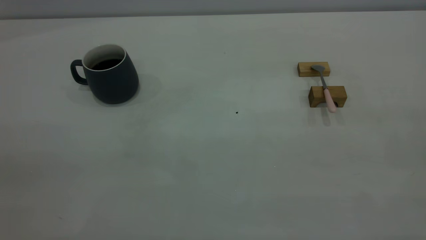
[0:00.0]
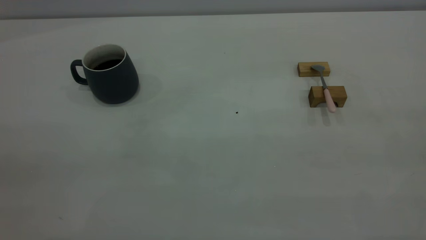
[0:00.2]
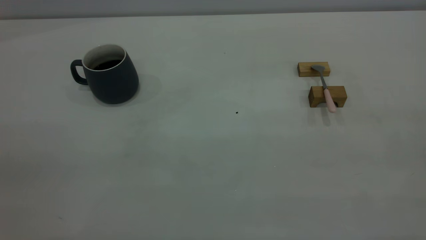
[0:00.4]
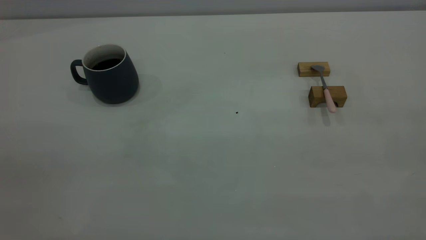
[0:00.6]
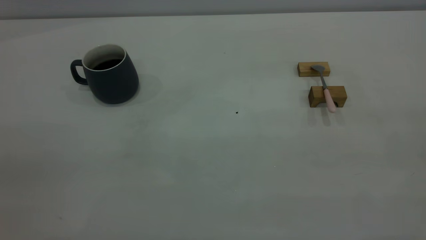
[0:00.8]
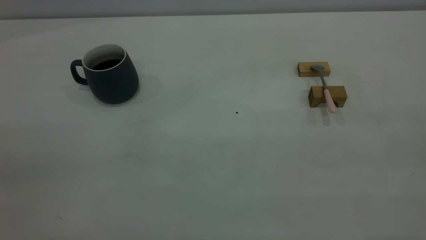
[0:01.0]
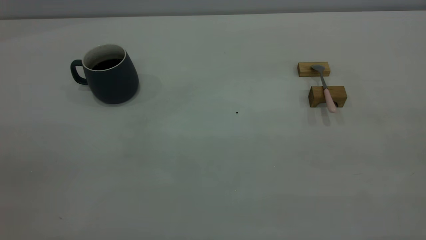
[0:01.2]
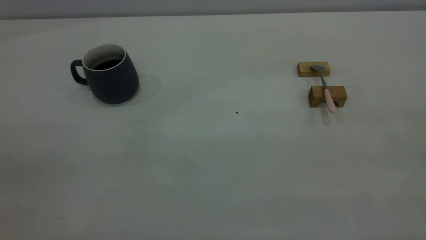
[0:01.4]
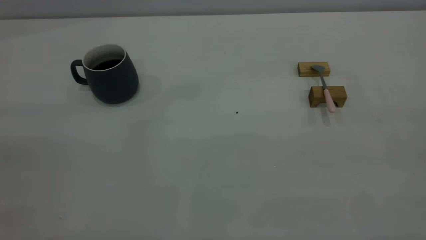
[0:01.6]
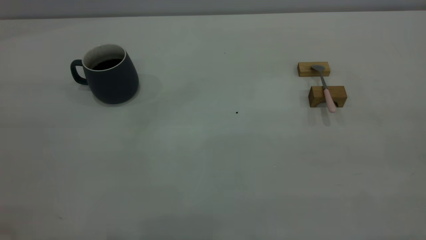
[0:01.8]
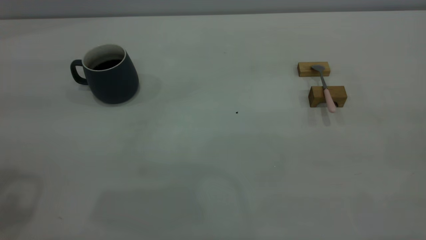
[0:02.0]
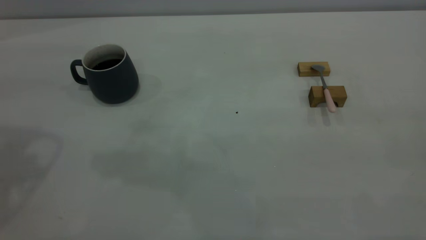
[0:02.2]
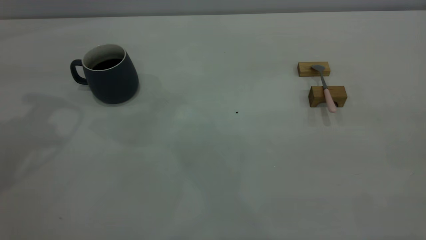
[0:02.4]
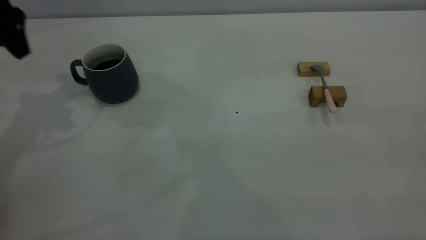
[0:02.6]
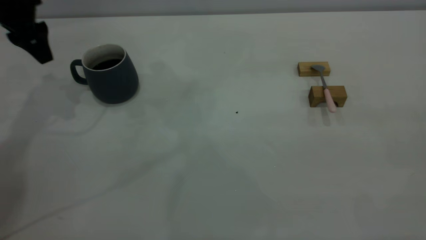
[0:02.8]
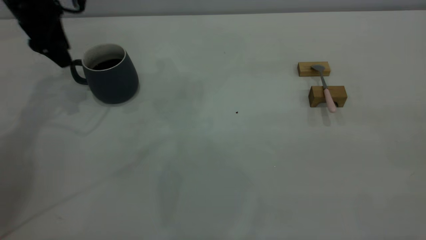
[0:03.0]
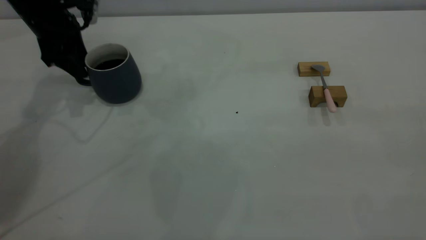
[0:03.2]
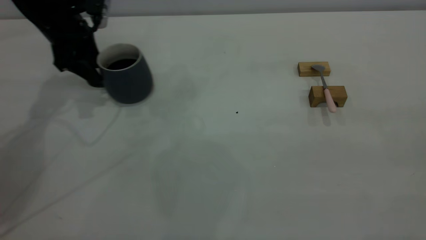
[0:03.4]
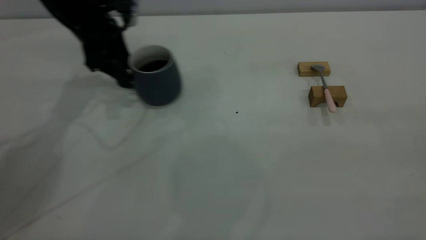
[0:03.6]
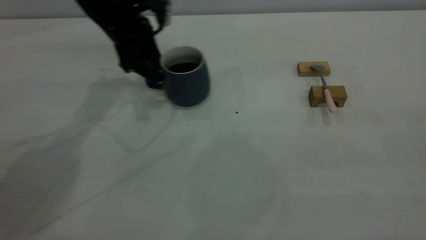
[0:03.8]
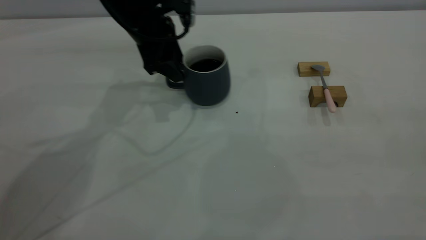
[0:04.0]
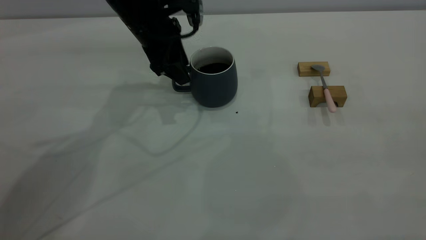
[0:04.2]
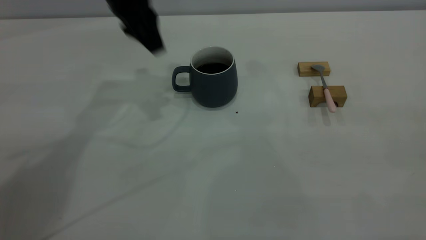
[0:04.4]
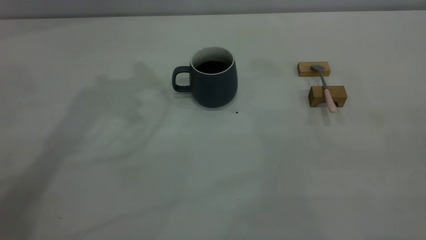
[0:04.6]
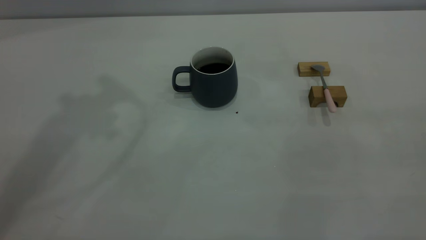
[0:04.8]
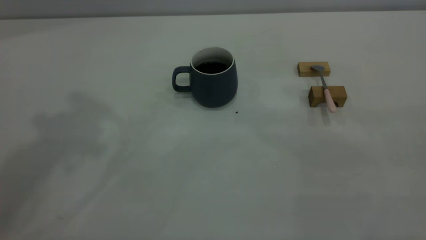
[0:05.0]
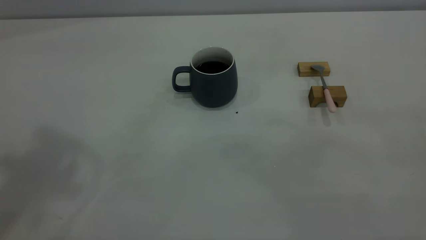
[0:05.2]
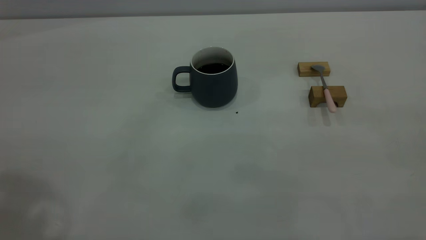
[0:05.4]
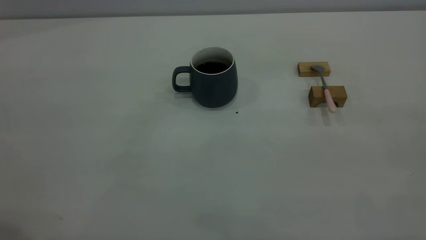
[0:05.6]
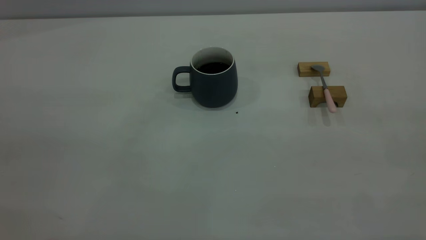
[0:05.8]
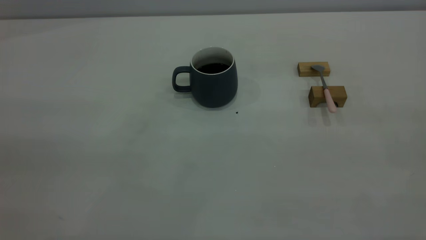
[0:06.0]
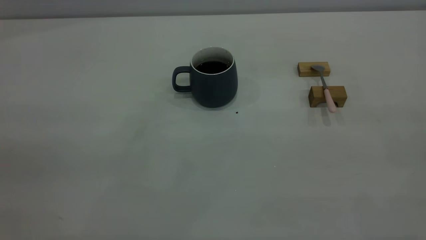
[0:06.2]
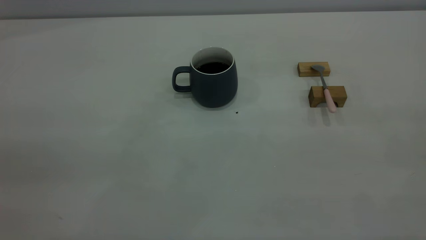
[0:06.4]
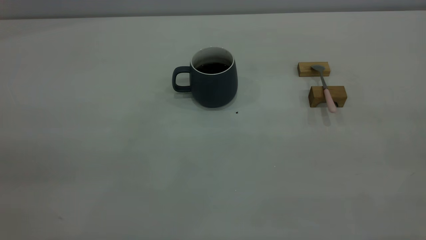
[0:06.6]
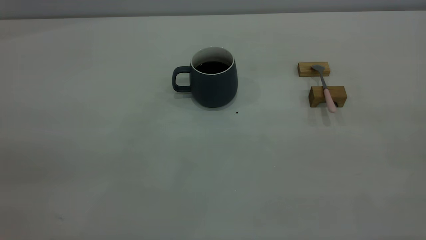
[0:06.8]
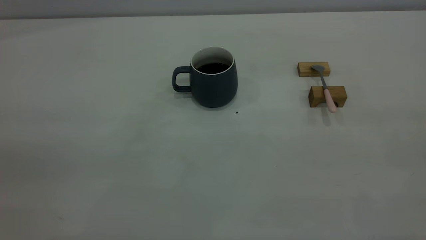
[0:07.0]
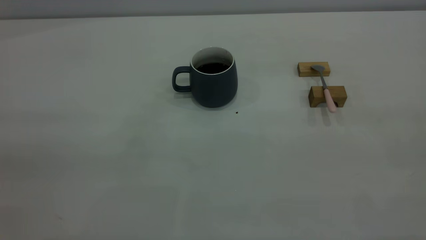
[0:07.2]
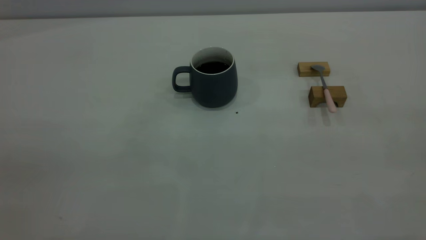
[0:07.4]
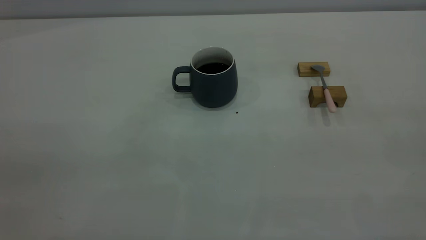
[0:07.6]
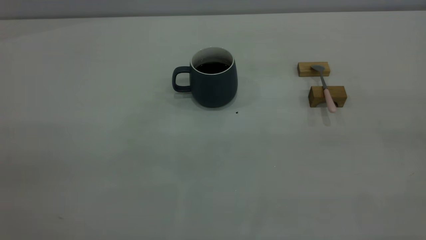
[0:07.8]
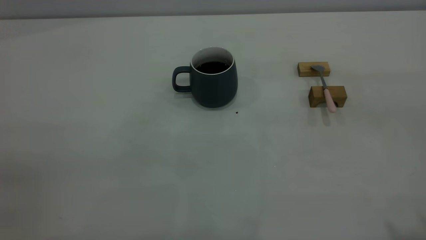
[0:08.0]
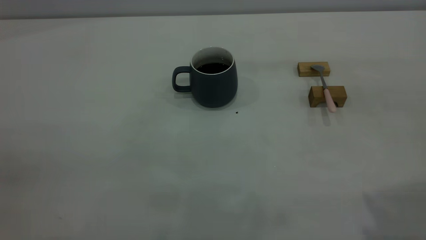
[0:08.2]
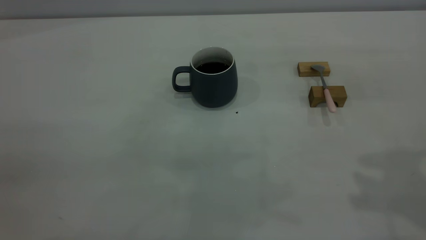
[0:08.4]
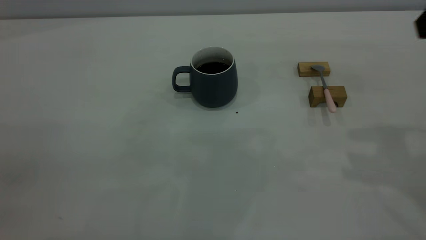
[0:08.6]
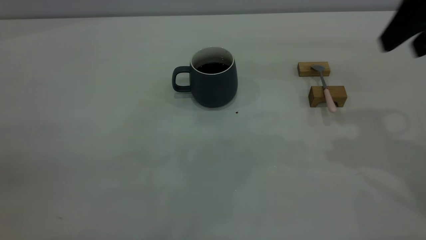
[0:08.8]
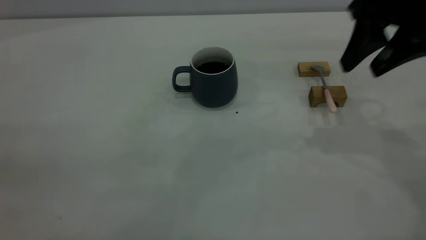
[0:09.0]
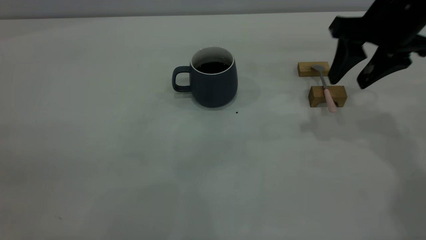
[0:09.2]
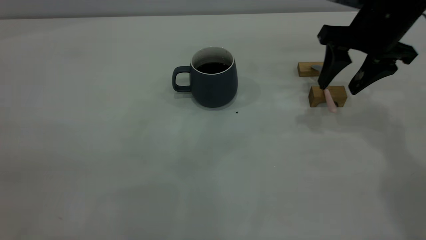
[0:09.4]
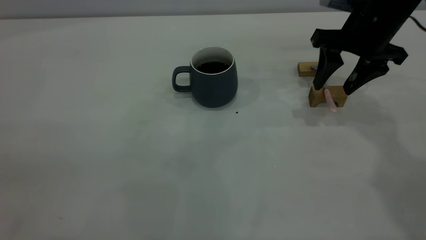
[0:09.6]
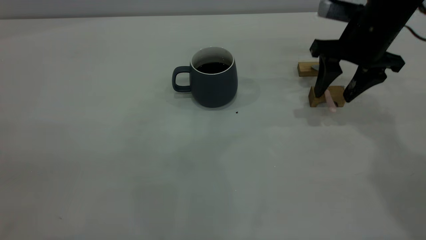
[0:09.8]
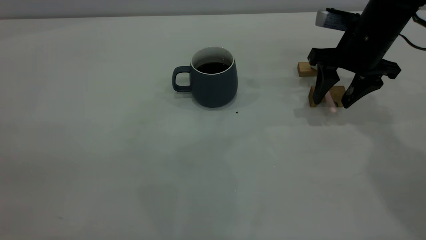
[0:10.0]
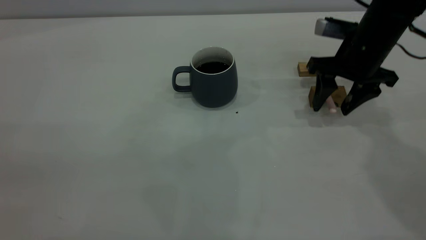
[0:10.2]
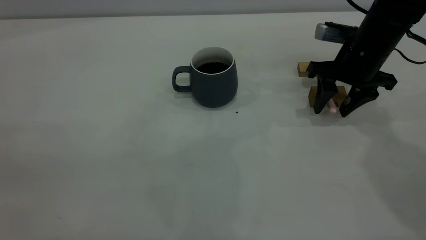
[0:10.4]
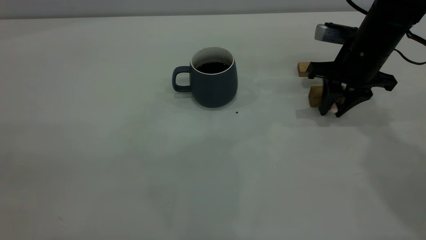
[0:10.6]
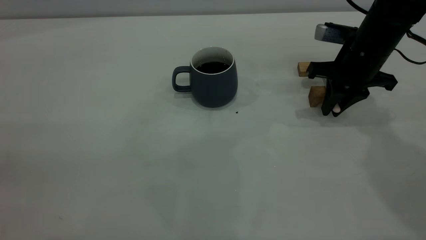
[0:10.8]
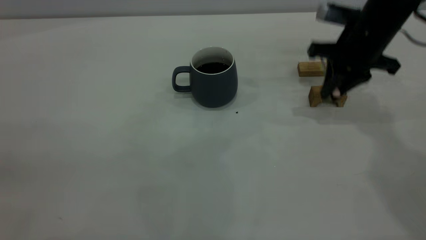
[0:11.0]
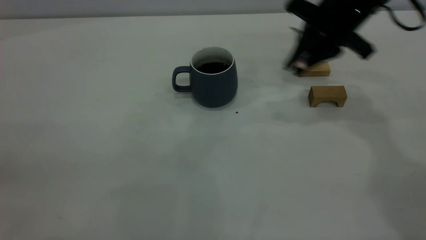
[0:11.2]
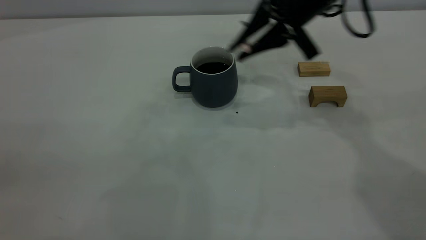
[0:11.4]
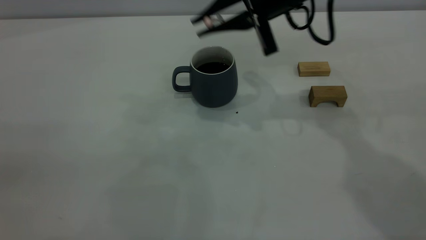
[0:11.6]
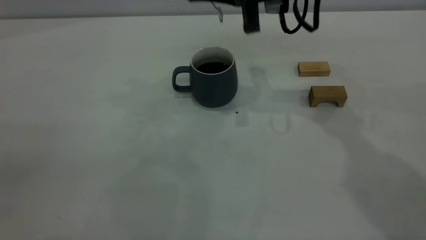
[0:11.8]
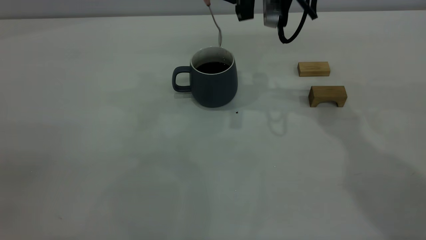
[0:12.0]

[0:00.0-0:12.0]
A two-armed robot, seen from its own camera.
Step, 0:00.0 to 0:04.2: Move the cup with coffee to the center of view.
Step, 0:04.6 to 0:11.0: Pick up the spoon.
0:01.6 to 0:03.0: The left gripper travels forward and downward by approximately 50 cm.
0:03.0 to 0:04.4: The left gripper goes some 15 cm to the right and upward.
0:04.4 to 0:06.0: The left gripper moves backward, some 40 cm.
0:07.6 to 0:09.0: The right gripper is displaced forward and downward by some 35 cm, and opens up.
0:09.0 to 0:10.4: The right gripper goes some 15 cm downward and forward.
0:10.4 to 0:12.0: The right gripper moves to the left and upward, some 15 cm, and closes up.

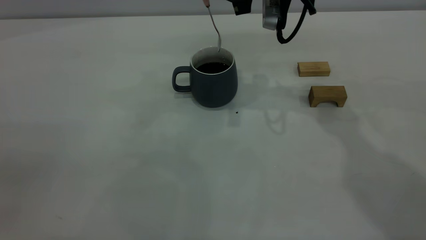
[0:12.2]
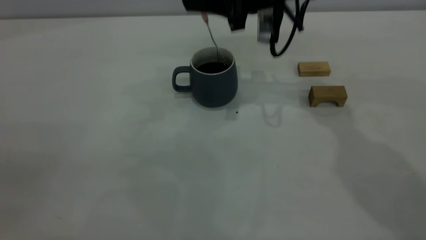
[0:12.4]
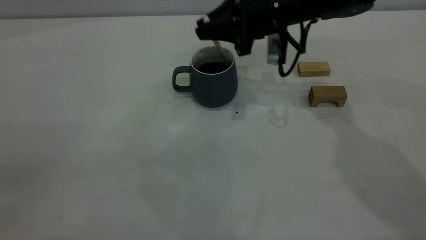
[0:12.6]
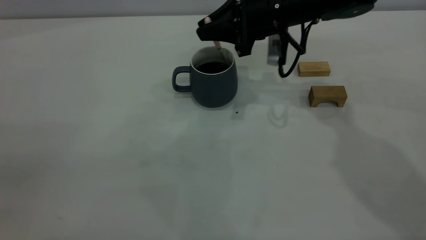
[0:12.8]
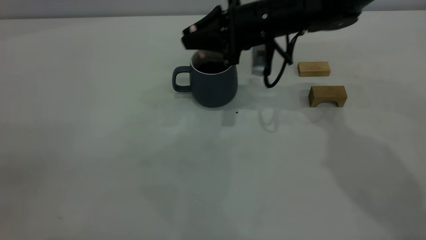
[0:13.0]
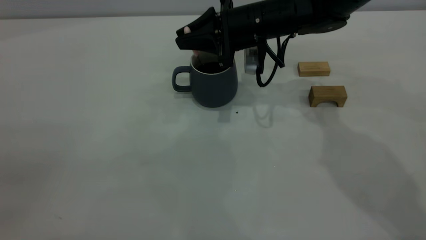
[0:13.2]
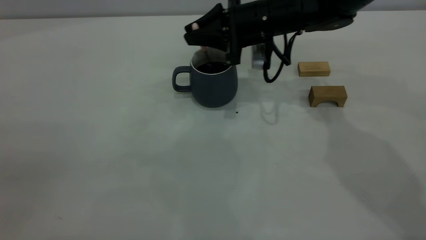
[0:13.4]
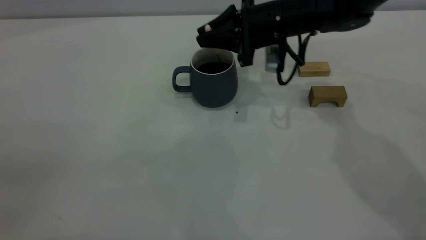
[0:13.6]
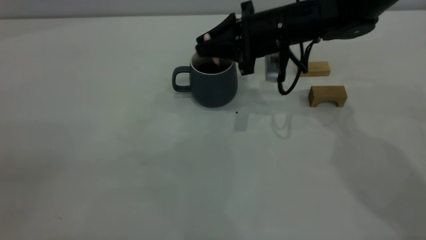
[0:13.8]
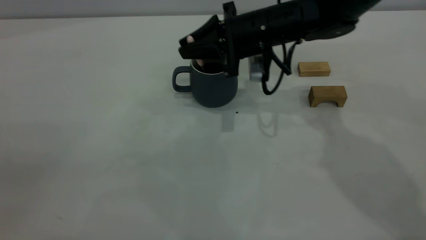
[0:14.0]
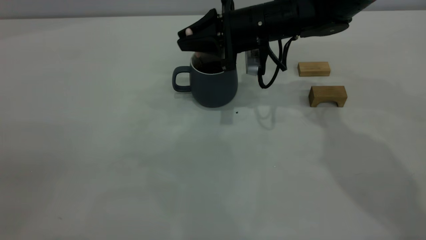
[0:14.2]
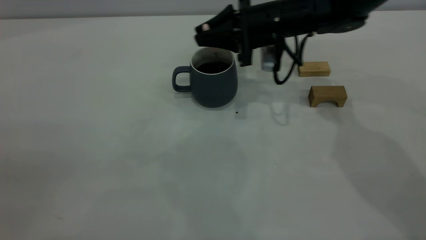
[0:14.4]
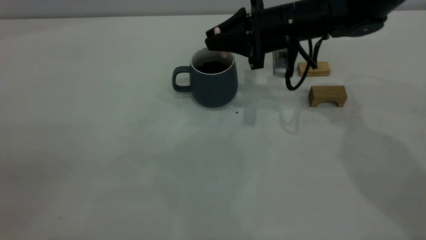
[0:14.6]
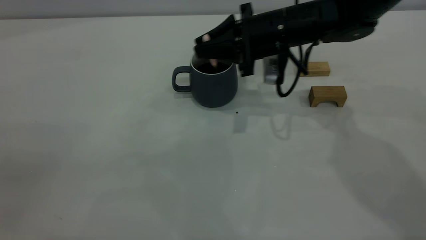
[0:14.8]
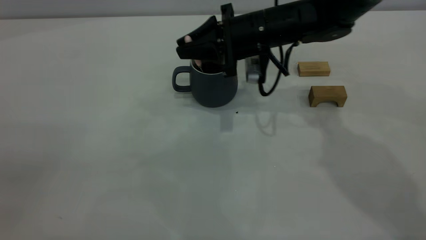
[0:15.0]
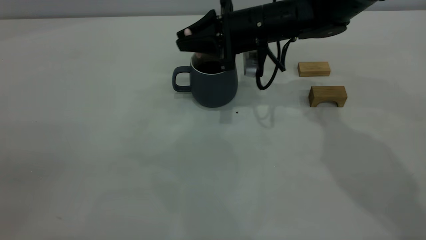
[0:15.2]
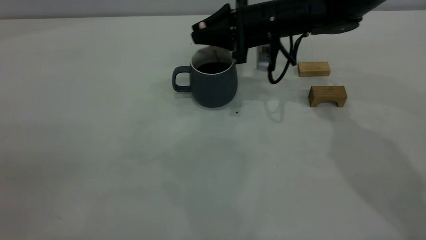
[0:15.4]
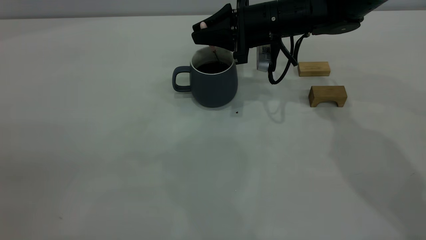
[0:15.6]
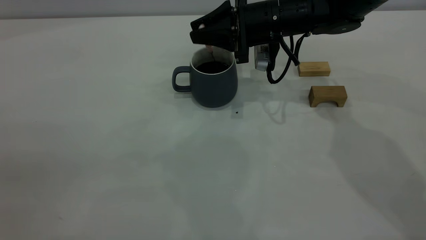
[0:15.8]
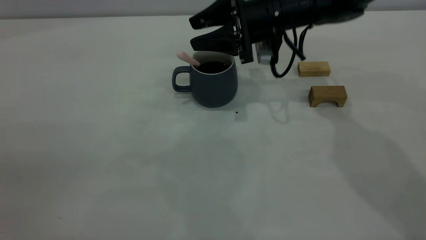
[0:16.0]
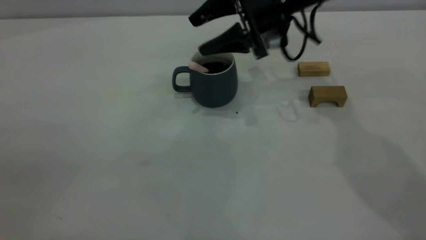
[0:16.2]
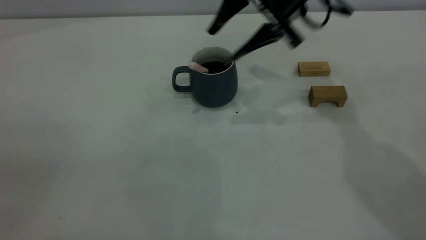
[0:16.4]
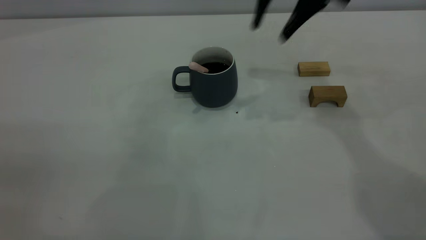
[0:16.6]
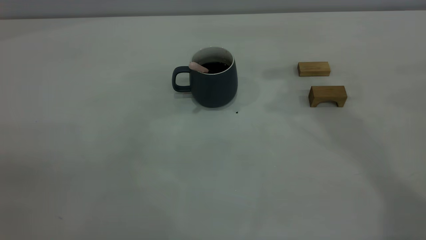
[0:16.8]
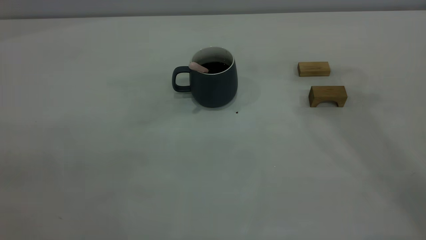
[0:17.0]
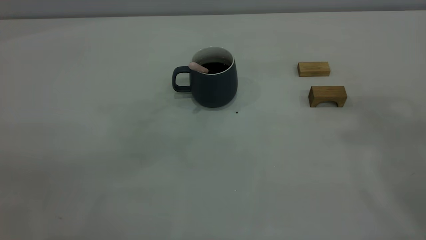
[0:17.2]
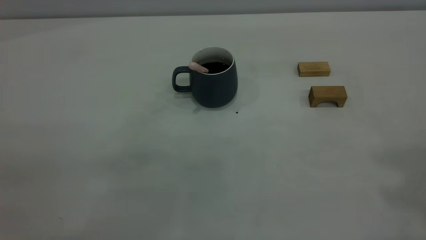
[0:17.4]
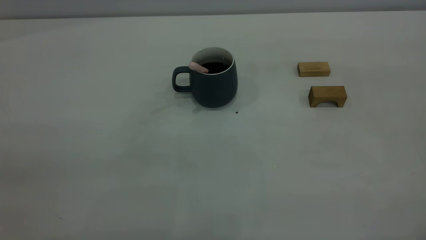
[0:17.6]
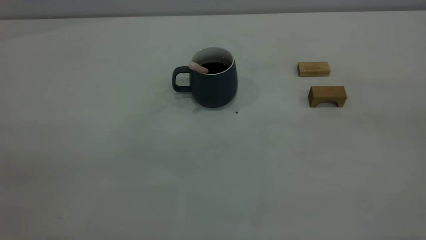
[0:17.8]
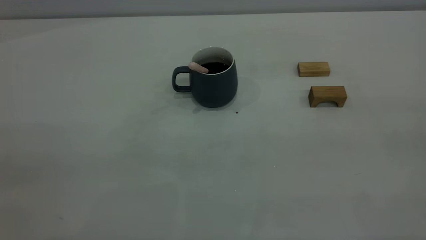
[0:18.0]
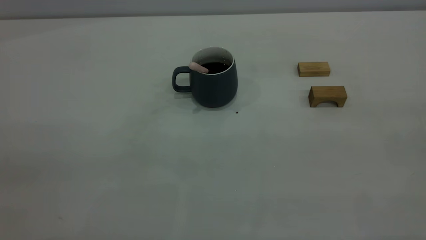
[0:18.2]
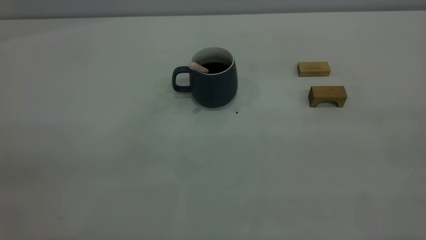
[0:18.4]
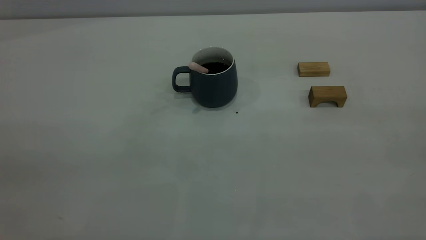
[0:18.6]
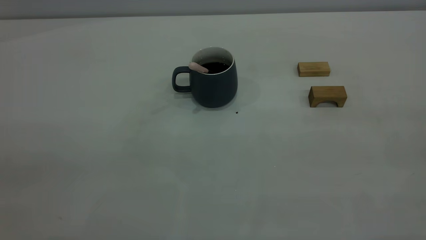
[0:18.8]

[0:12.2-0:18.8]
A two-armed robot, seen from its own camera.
Step, 0:12.2 to 0:16.4: Stir the coffee in the cup.
0:12.2 to 0:13.8: The right gripper goes roughly 10 cm downward.
0:13.8 to 0:15.4: The grippers make only small movements.
0:15.4 to 0:17.2: The right gripper is displaced upward, backward and to the right by some 50 cm, and opens, then closes again.
